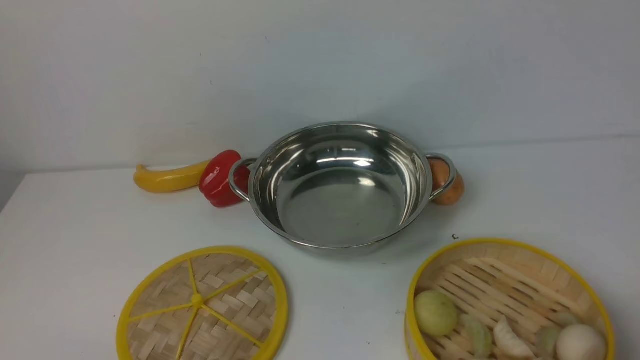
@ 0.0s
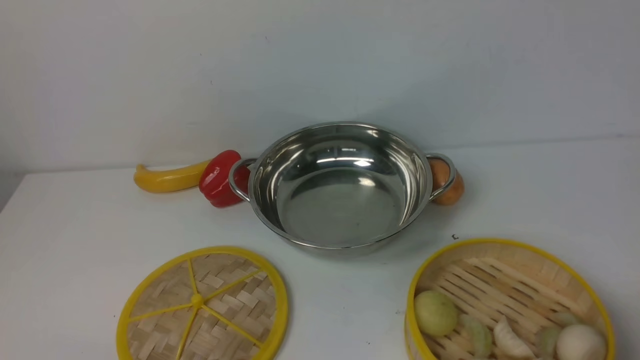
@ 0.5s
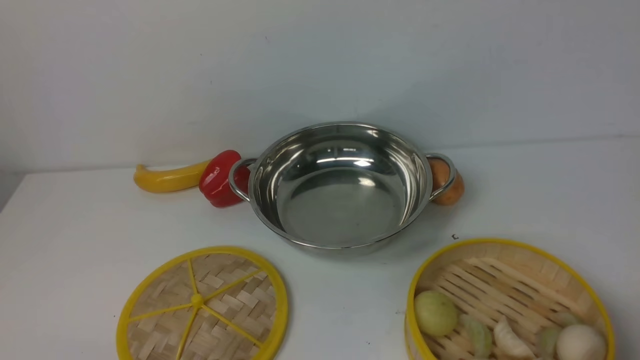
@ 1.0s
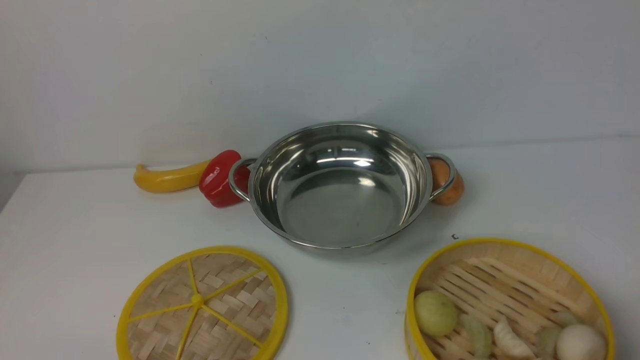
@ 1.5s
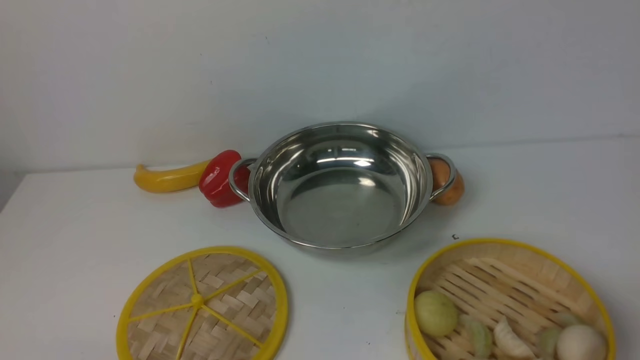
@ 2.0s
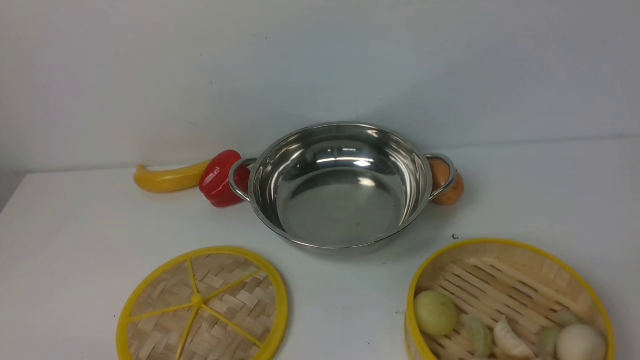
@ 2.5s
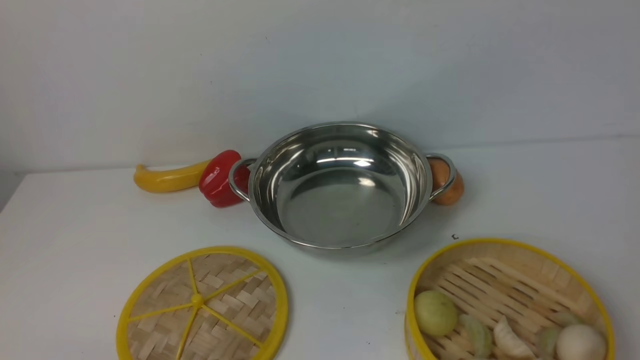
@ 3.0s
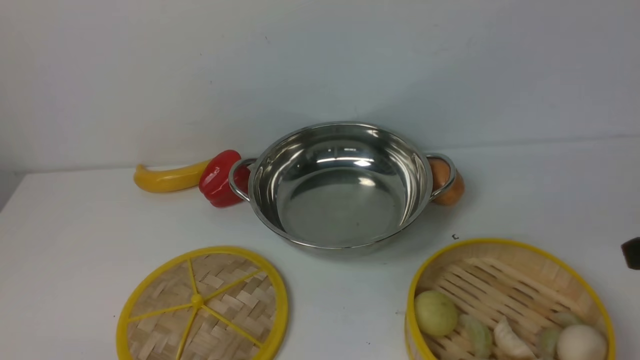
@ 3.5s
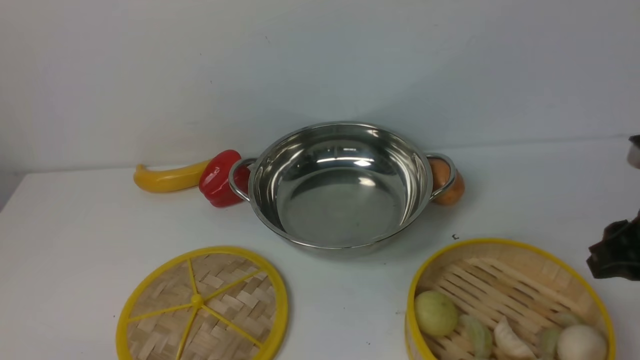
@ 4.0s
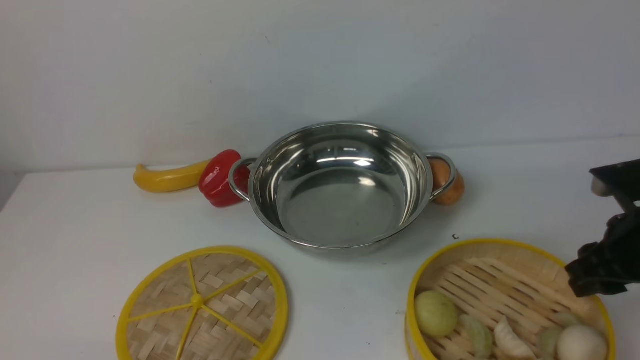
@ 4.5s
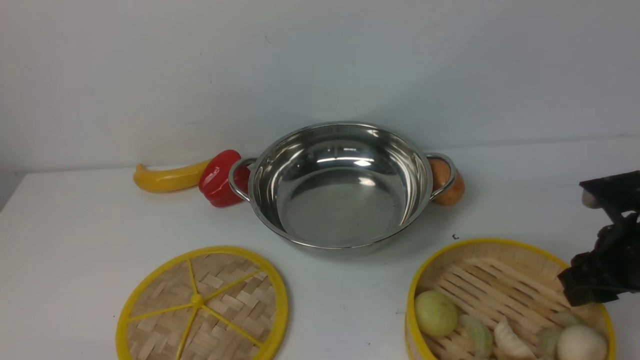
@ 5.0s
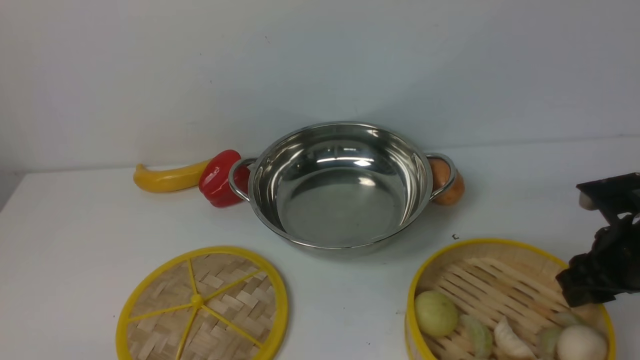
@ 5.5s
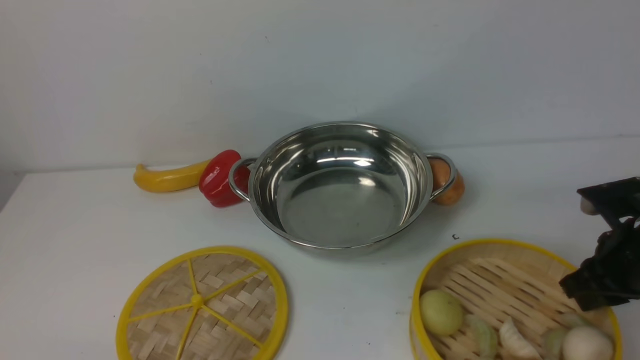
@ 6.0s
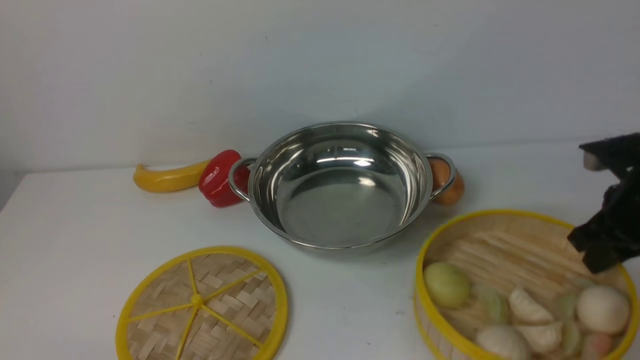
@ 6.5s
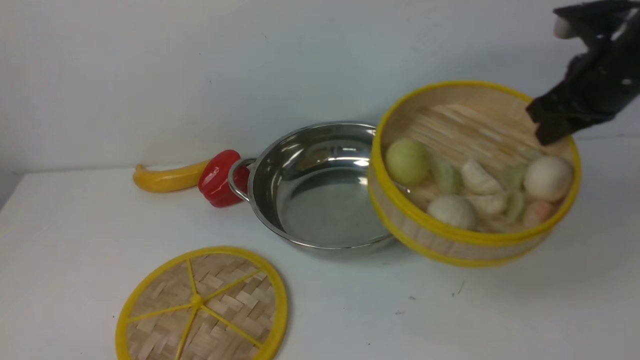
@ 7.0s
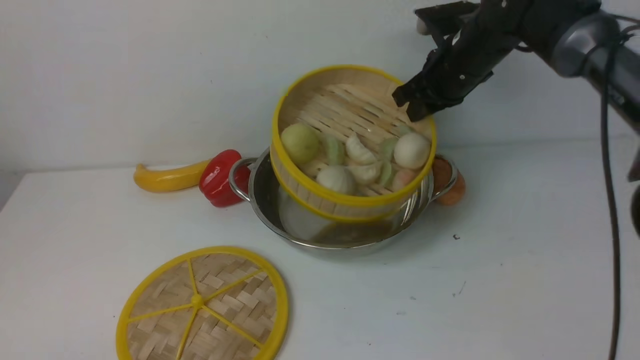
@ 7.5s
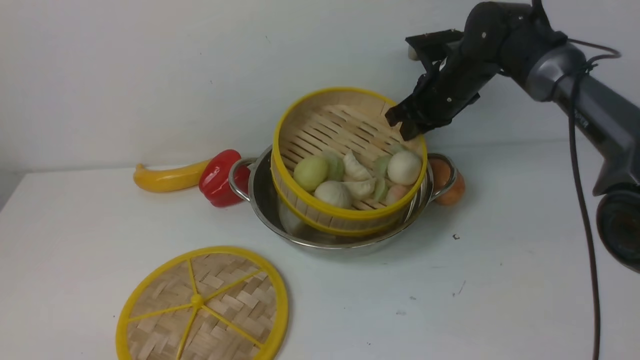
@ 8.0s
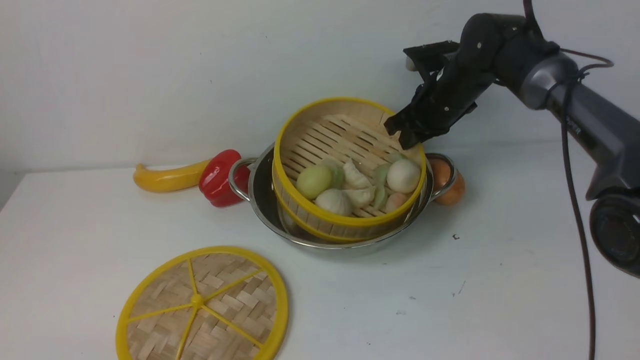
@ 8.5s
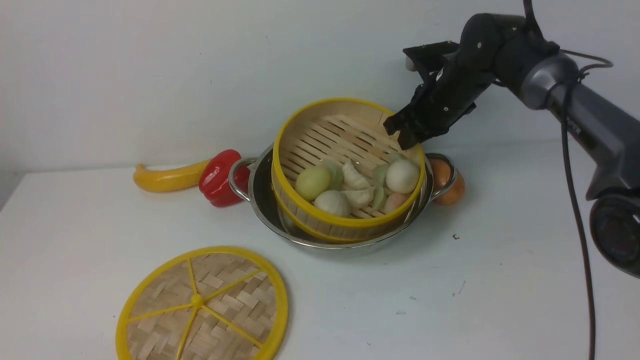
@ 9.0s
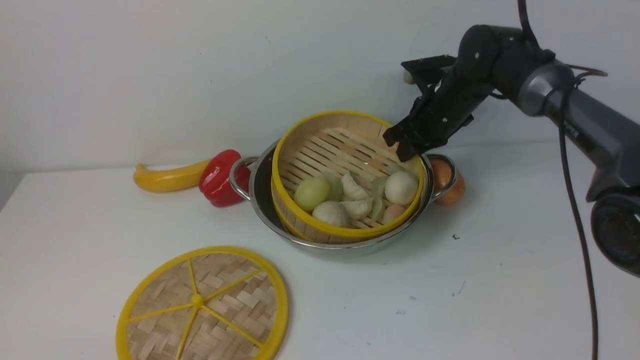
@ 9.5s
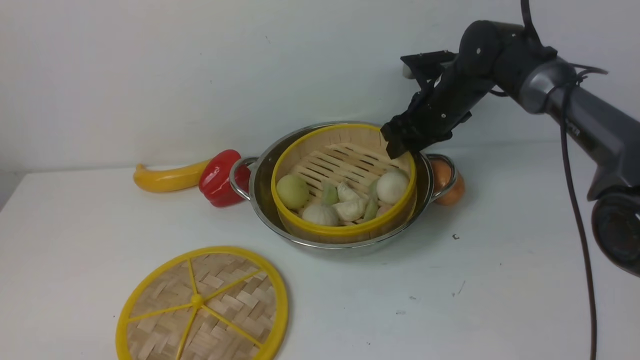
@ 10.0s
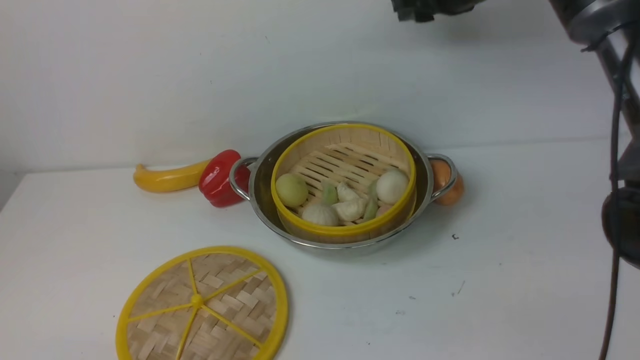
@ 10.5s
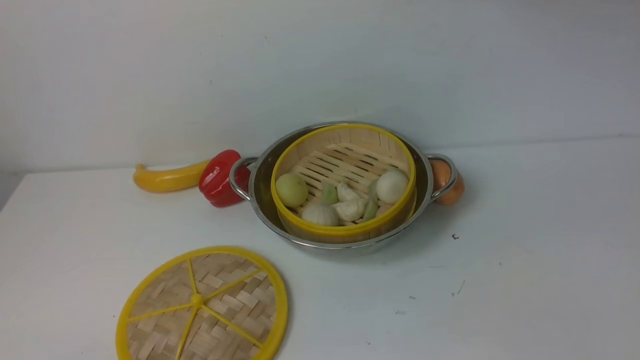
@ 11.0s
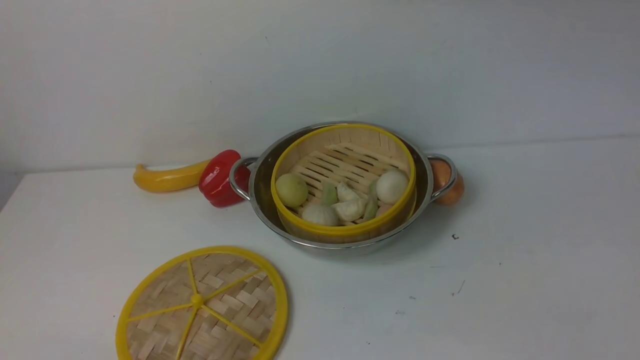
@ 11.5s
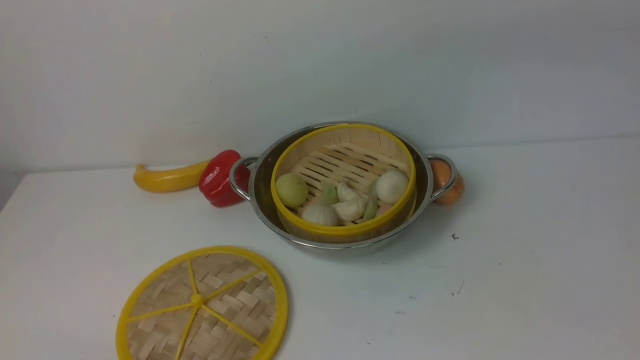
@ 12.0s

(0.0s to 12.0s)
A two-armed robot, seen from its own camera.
Task of the whole recording: place the steamer in the pot on the white table, and put the lid on the steamer.
Step, 0.0s - 6.5s: use the right arm to lift the steamer closest to it.
Step, 7.0s - 10.5s: use the right arm to put the steamer into the iron steamer pot in the middle.
2.0s - 4.0s: The right gripper moves forward, about 20 cm.
4.0s - 6.0s: The right gripper travels downward by about 10 cm, and closes its fingers.
6.0s - 8.0s: The right gripper is displaced forward and to the left by some 25 cm.
8.0s - 10.0s: The right gripper opens.
10.0s - 12.0s: The right gripper travels upward and backward by approximately 30 cm, and closes.

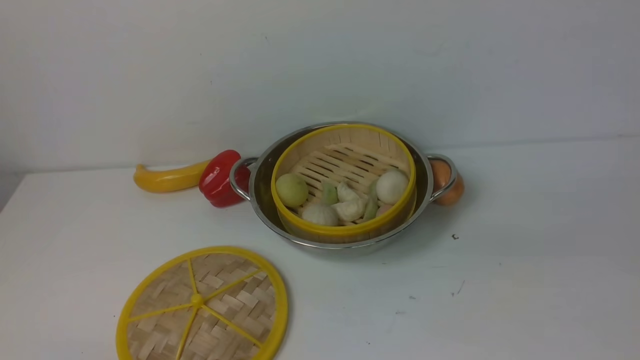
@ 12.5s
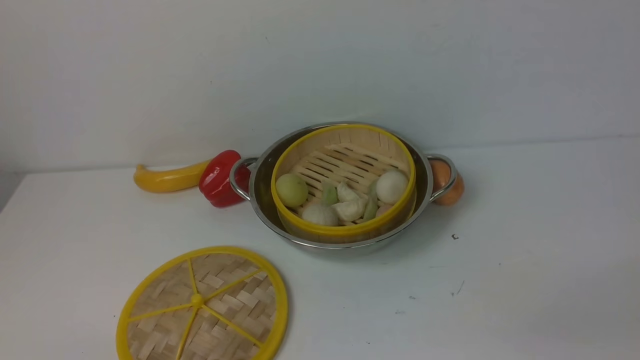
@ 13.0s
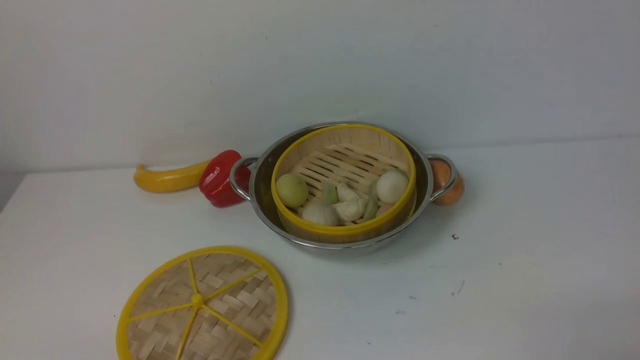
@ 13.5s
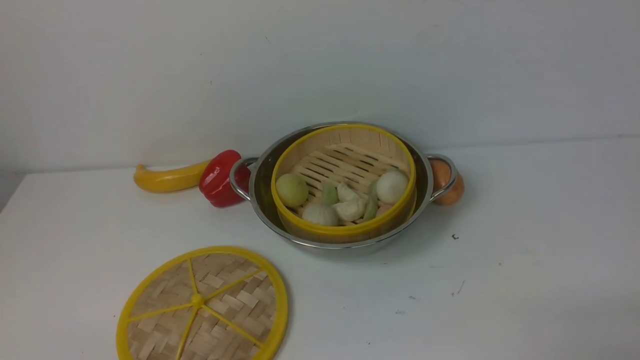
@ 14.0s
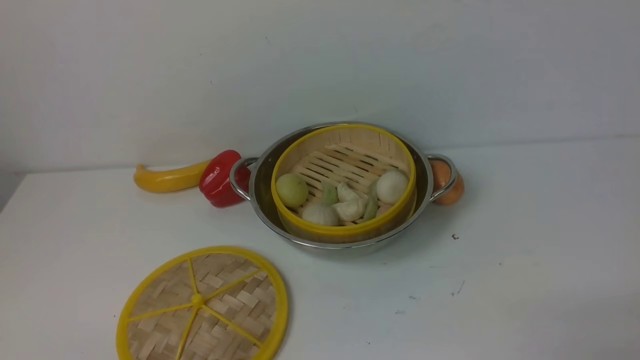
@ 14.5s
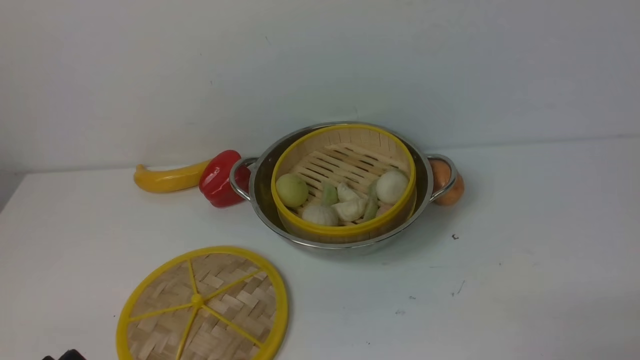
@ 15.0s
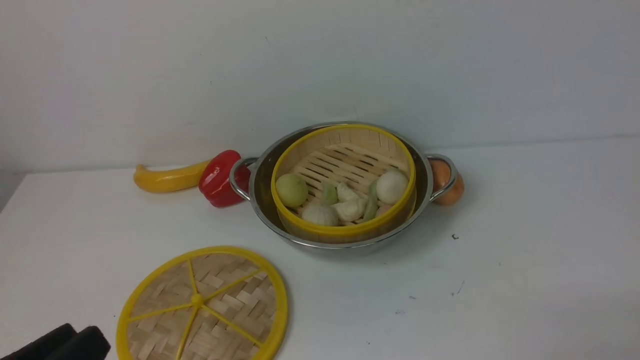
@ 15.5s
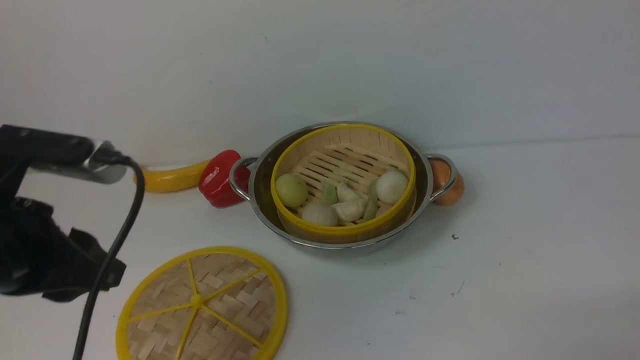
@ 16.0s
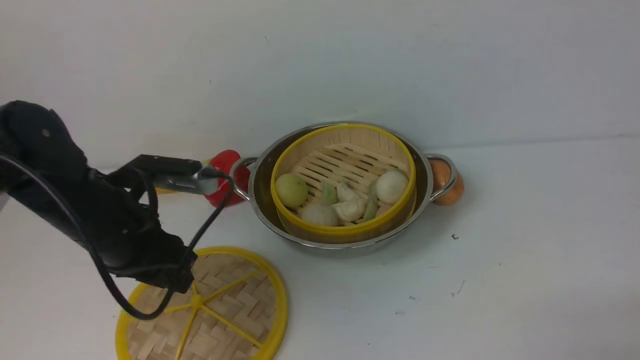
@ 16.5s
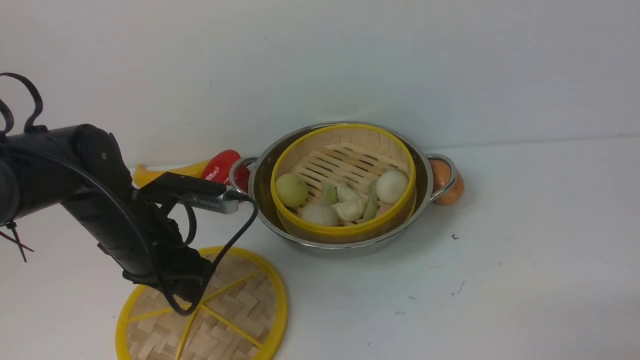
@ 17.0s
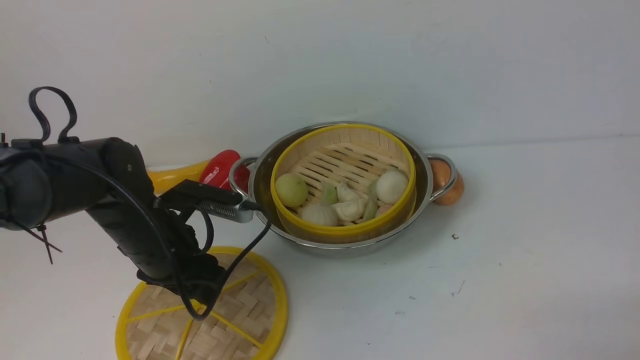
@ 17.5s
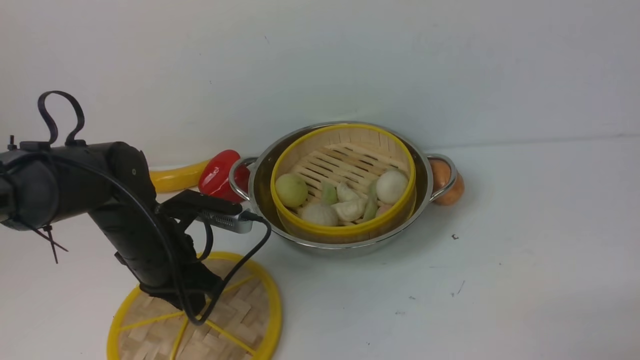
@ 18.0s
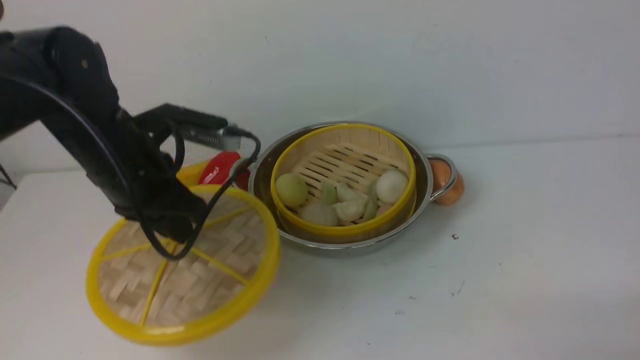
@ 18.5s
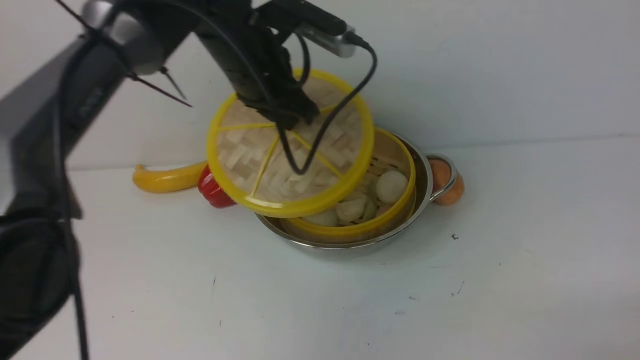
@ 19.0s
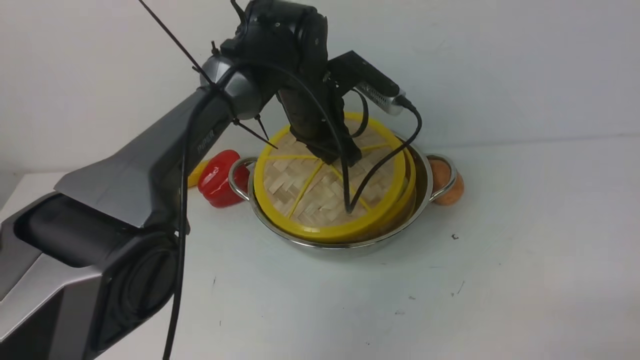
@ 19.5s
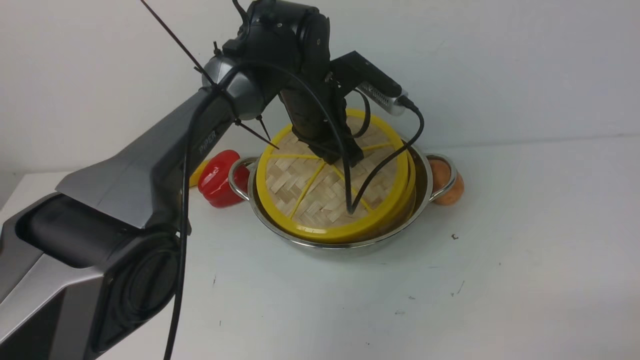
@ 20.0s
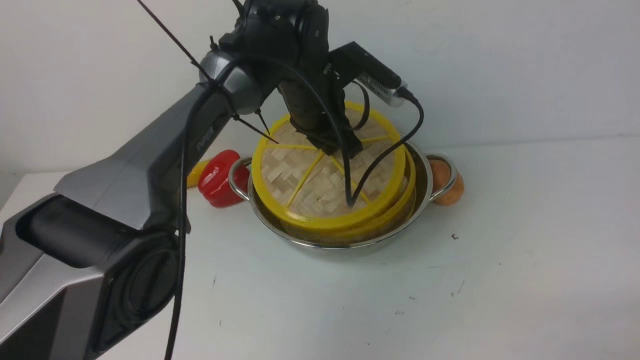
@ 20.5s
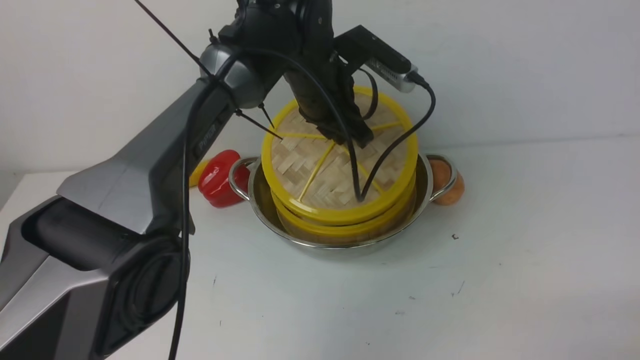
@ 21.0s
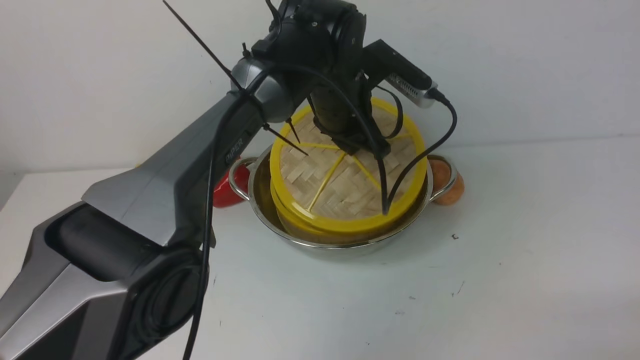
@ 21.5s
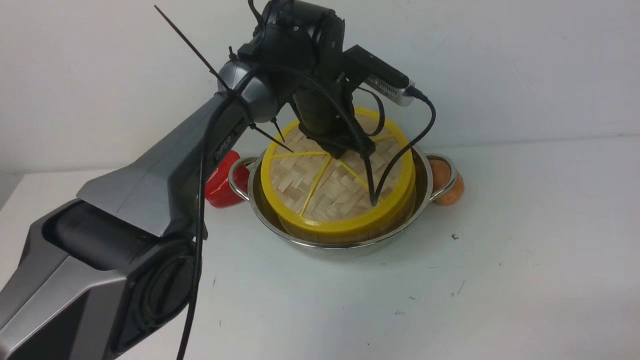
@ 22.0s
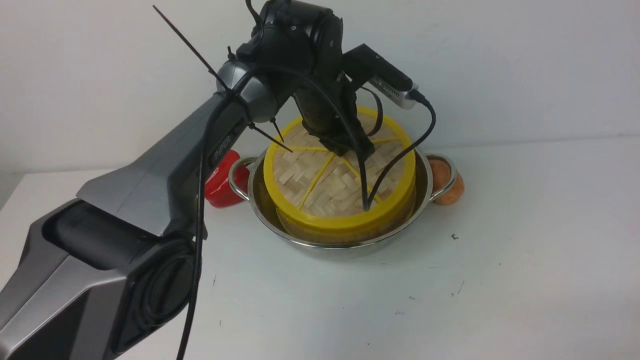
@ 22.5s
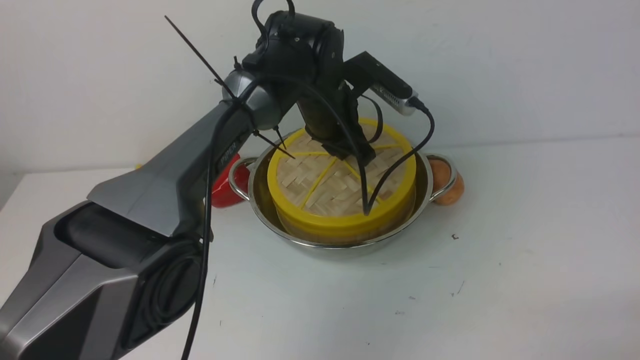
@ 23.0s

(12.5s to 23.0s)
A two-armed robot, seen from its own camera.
Task of the whole recording: place the steamer in the pot on the white table, and put the lid on the steamer.
Step, 12.5s - 18.0s: use the left arm to lift the lid of the steamer.
14.5s - 16.5s: The left gripper travels forward by approximately 25 cm.
16.5s - 19.0s: The left gripper moves to the right, forward and upward, approximately 20 cm, and closes its fingers.
19.0s - 21.0s: The left gripper travels to the right by roughly 5 cm.
